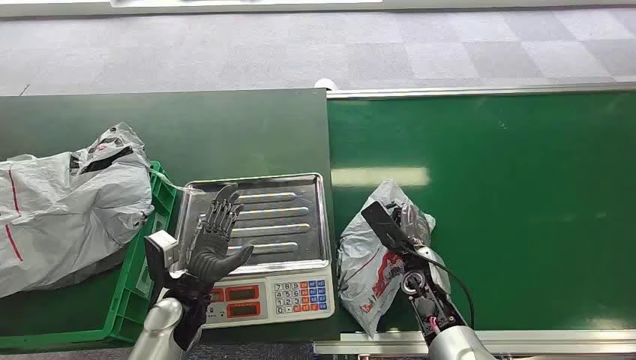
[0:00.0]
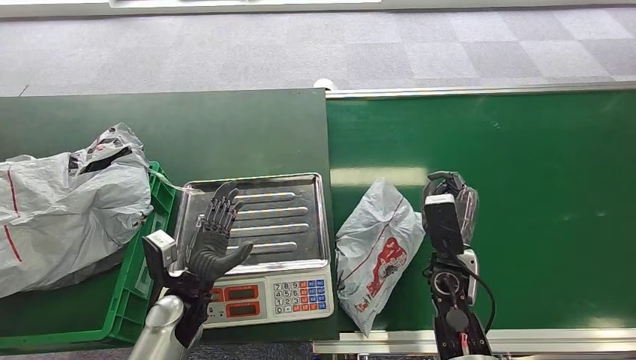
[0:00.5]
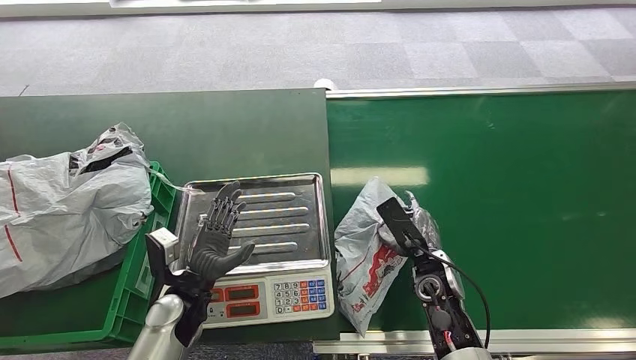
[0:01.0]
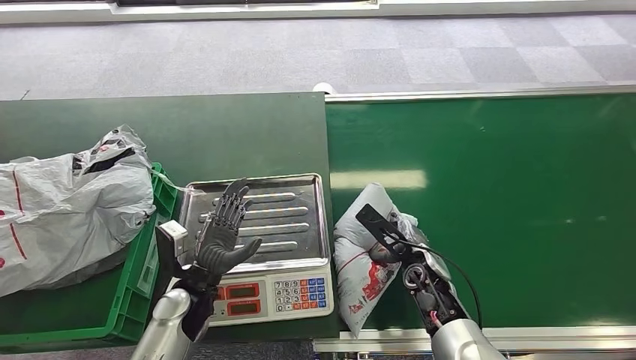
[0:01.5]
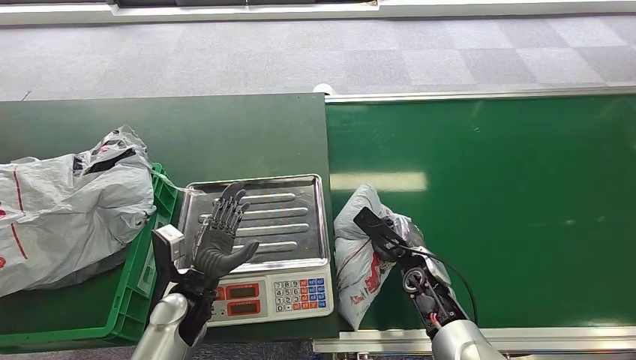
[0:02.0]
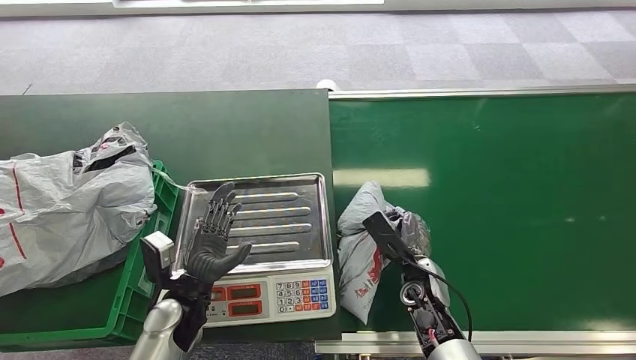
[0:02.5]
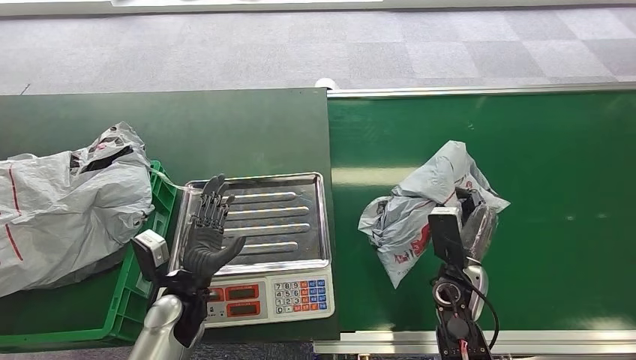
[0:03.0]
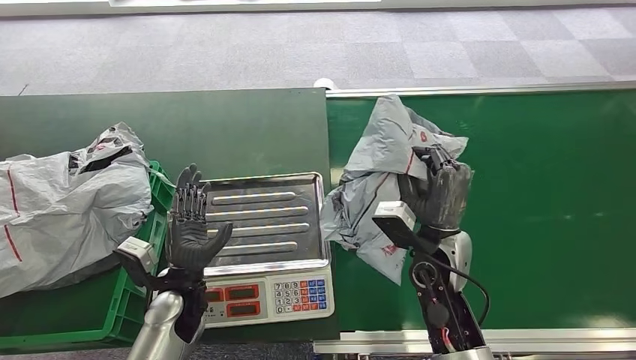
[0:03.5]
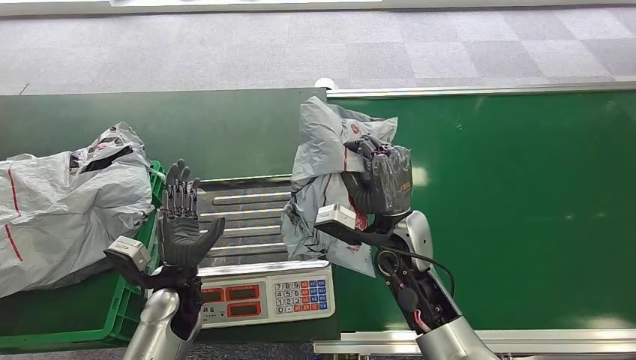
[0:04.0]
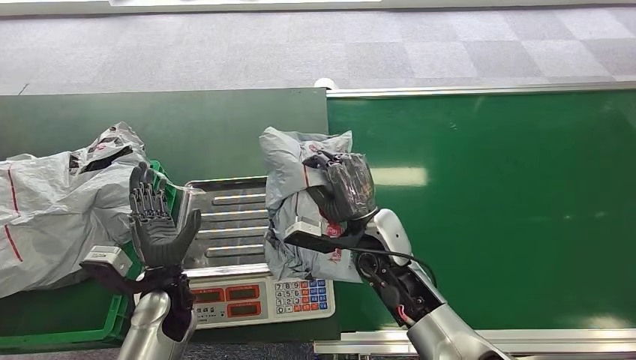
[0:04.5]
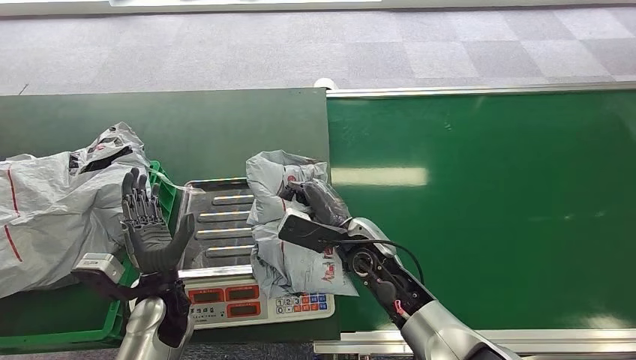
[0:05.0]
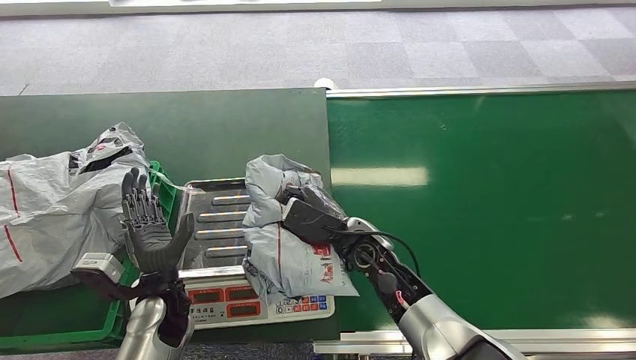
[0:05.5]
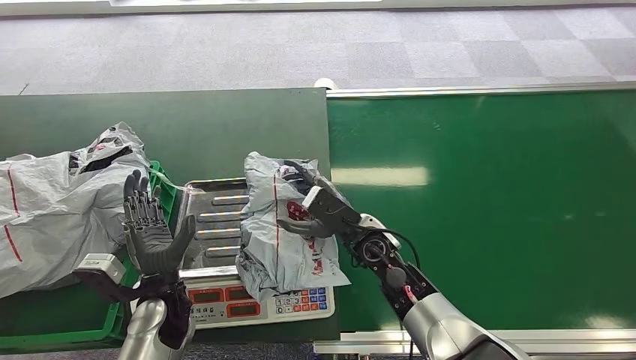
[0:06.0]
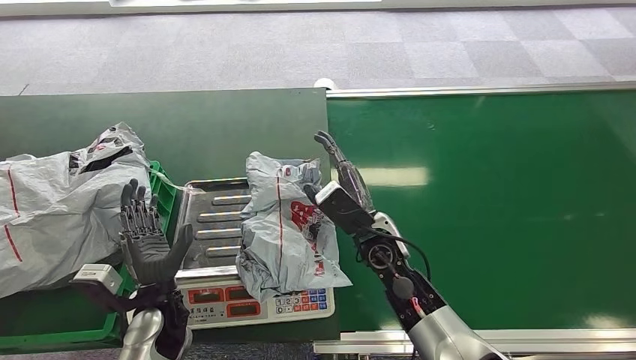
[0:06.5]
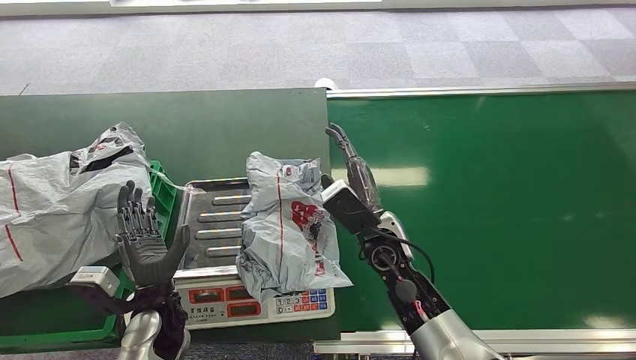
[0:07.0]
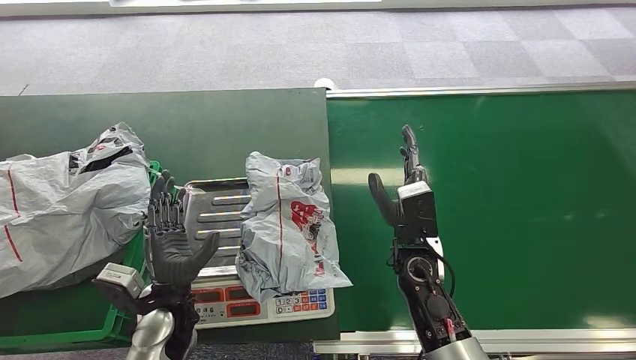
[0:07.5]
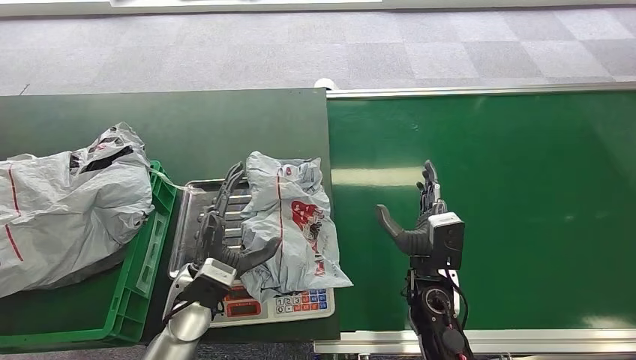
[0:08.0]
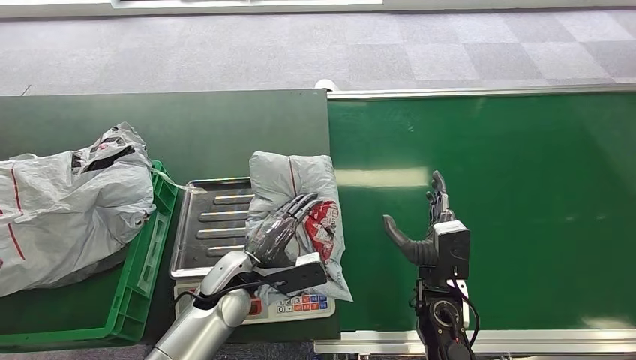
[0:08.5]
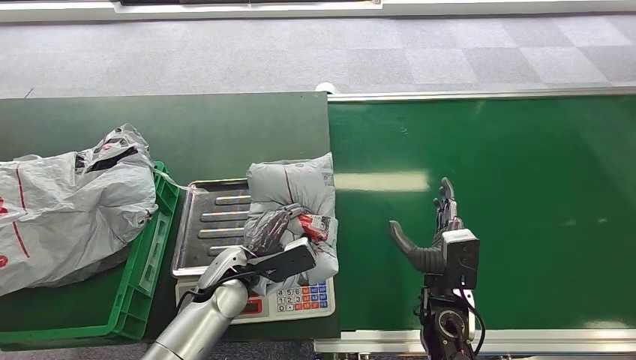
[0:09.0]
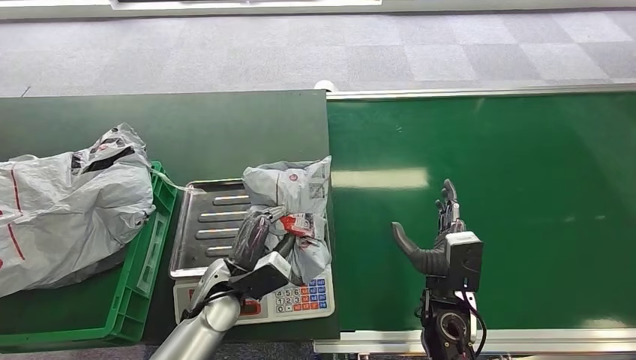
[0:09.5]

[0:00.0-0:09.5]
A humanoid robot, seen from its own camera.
Step, 0:00.0 to 0:03.5: Pick up the package from the conveyor belt.
Step, 0:05.0 to 0:07.0: Place the package onto the inbound machine.
0:04.0 to 0:05.5: The right hand shifts by roughly 5 cm.
0:05.5 to 0:07.5: The right hand travels to the right by roughly 5 cm.

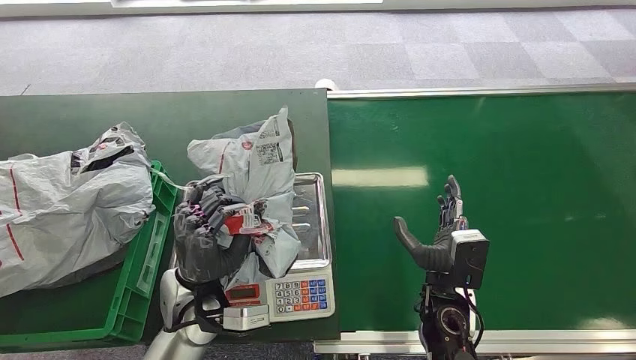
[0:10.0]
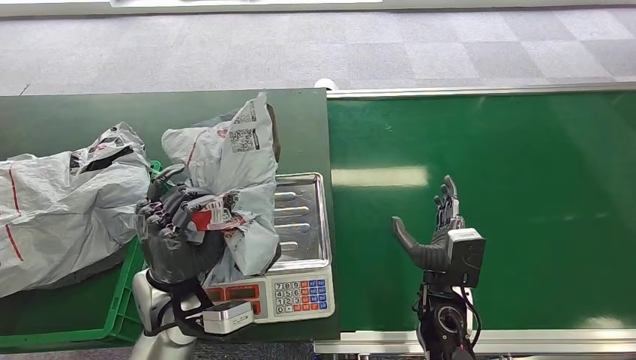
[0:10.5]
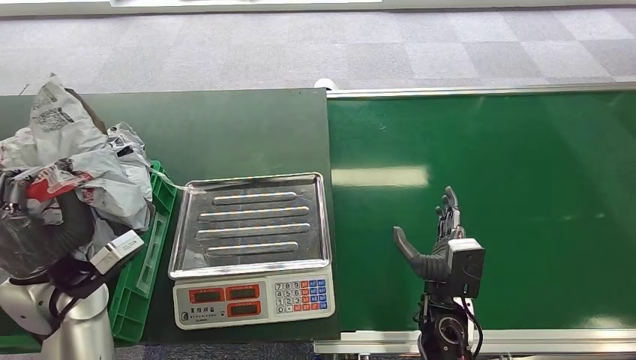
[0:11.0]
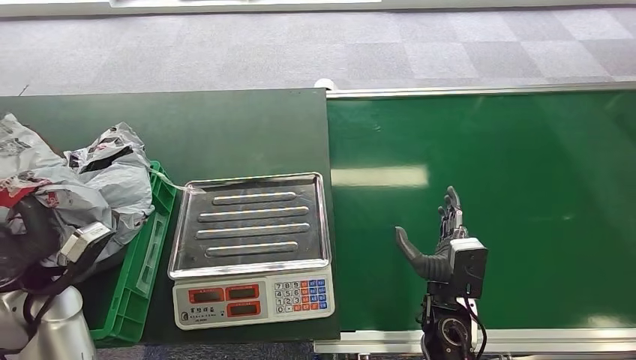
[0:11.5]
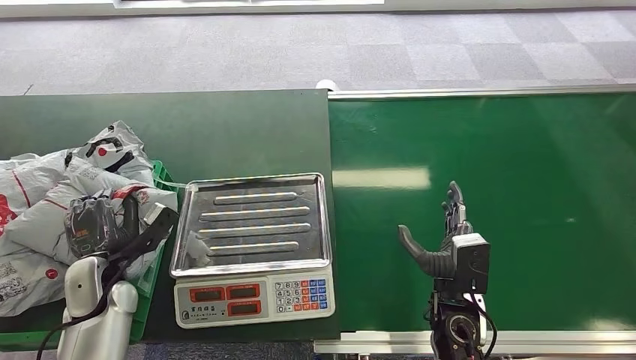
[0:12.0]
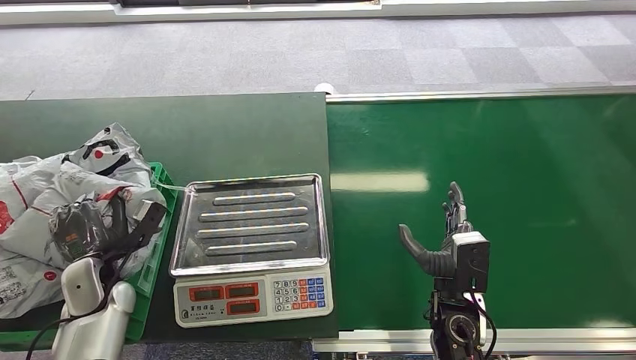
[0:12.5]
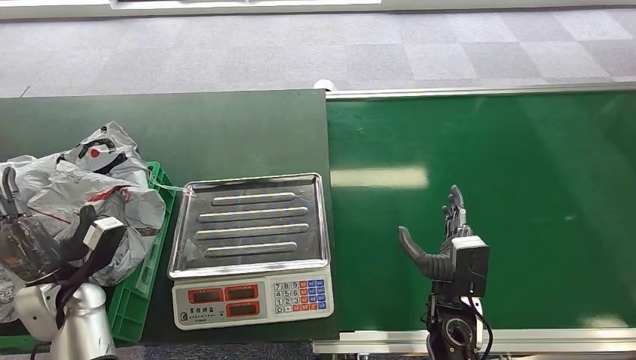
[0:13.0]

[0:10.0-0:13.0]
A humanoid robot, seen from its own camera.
Step, 0:11.0 to 0:13.0: Place the package into the parcel locker.
0:10.0 to 0:11.5: The left hand is displaced to the left by roughly 20 cm.
0:11.5 to 0:13.0: The left hand travels downward by approximately 5 cm.
